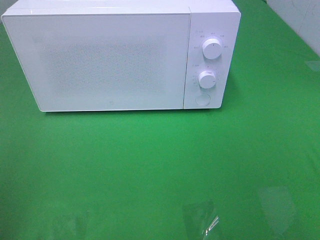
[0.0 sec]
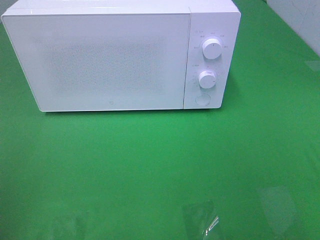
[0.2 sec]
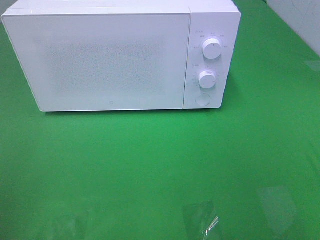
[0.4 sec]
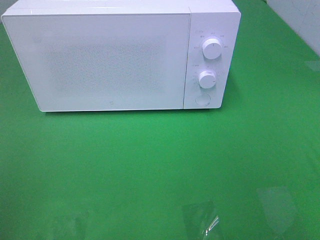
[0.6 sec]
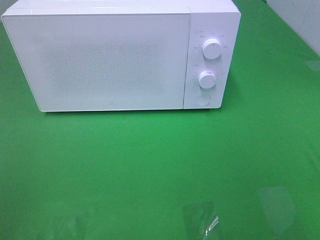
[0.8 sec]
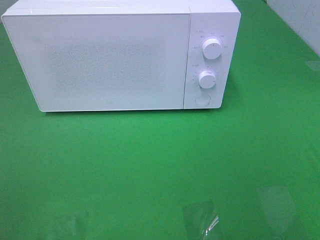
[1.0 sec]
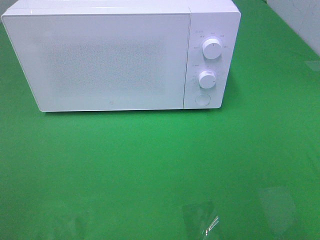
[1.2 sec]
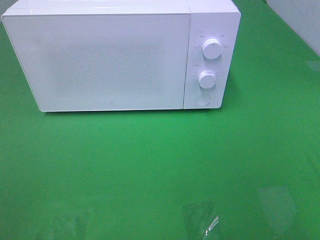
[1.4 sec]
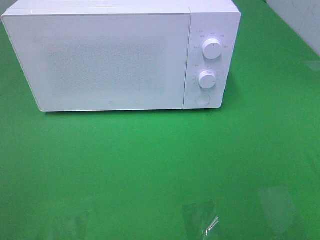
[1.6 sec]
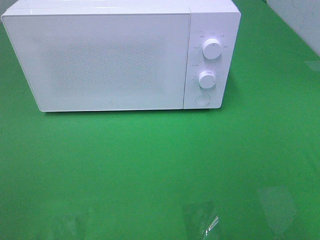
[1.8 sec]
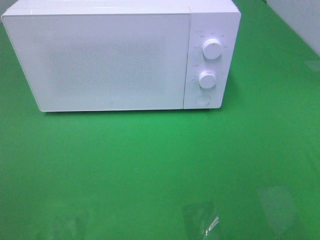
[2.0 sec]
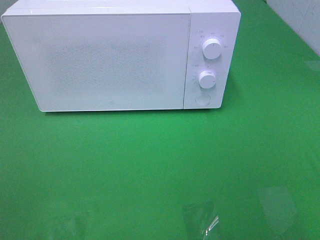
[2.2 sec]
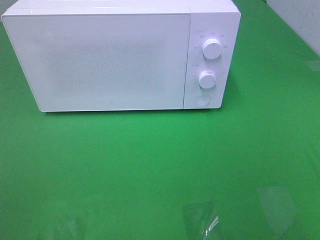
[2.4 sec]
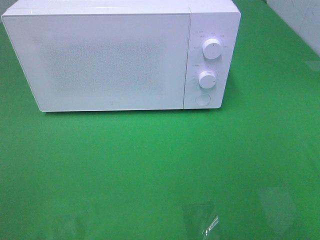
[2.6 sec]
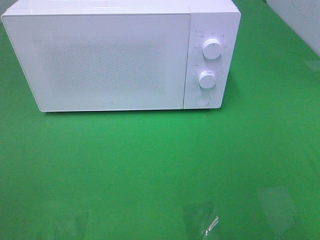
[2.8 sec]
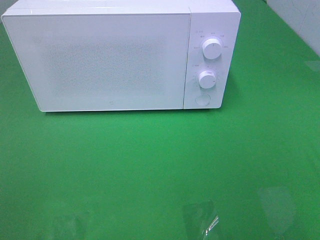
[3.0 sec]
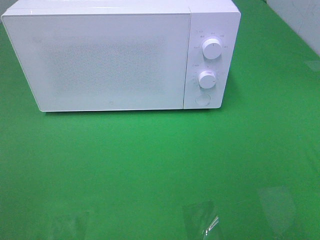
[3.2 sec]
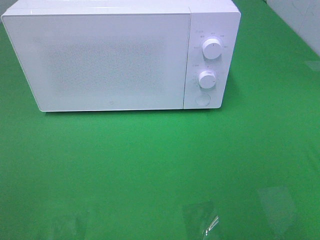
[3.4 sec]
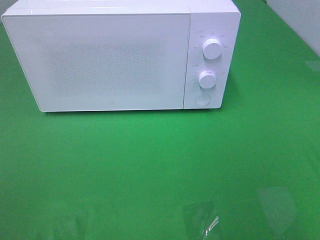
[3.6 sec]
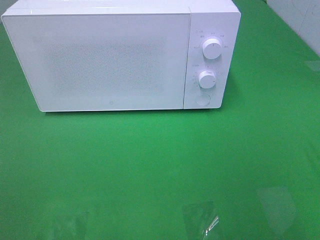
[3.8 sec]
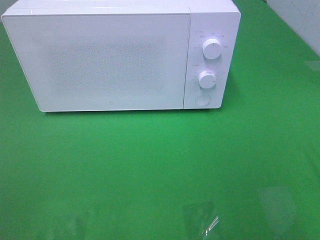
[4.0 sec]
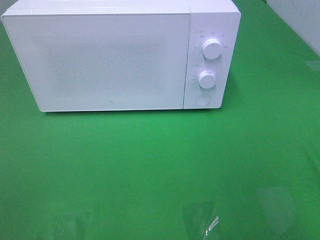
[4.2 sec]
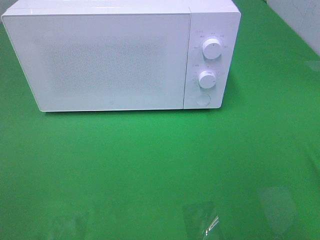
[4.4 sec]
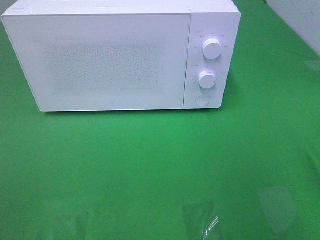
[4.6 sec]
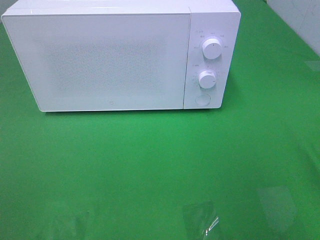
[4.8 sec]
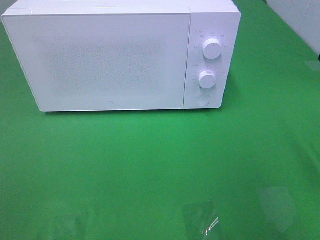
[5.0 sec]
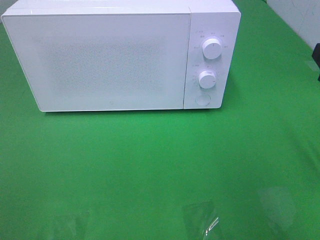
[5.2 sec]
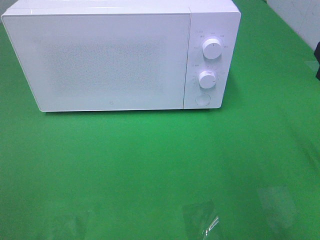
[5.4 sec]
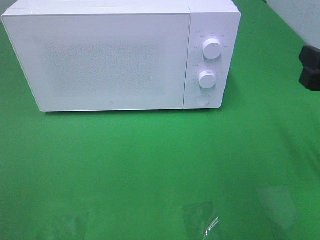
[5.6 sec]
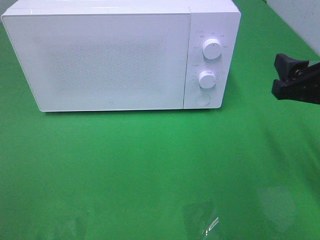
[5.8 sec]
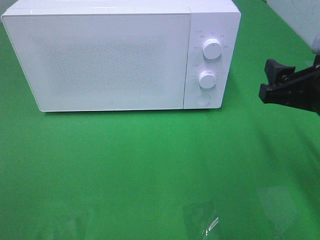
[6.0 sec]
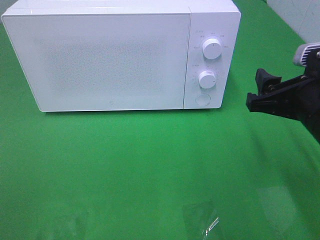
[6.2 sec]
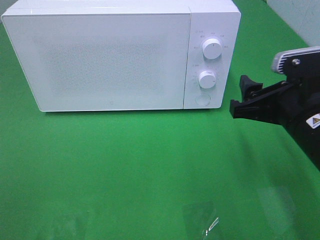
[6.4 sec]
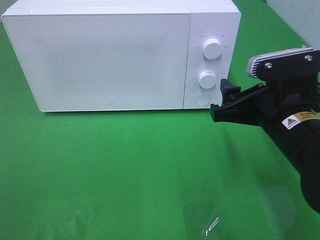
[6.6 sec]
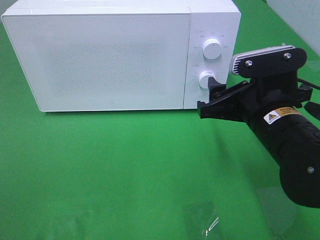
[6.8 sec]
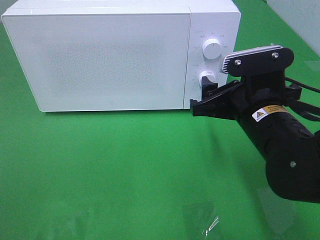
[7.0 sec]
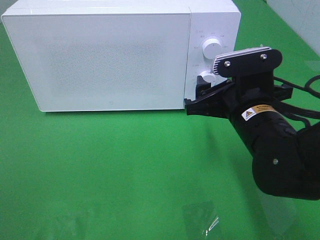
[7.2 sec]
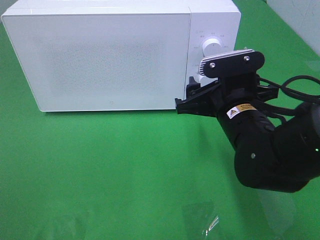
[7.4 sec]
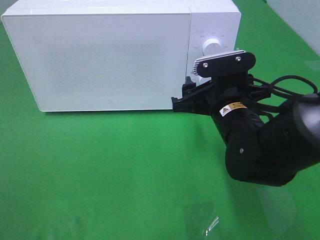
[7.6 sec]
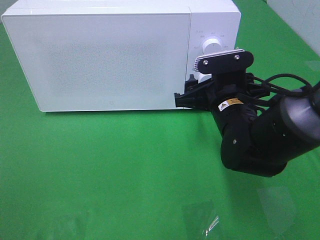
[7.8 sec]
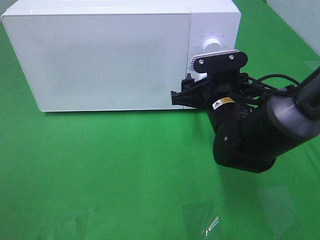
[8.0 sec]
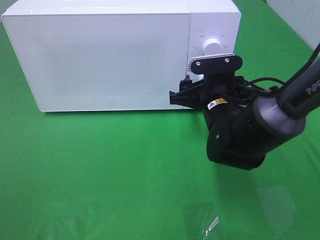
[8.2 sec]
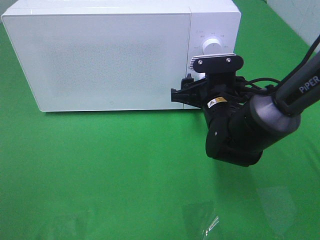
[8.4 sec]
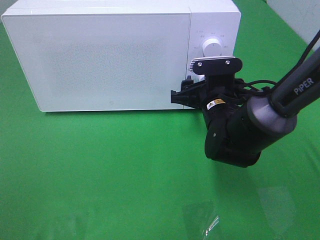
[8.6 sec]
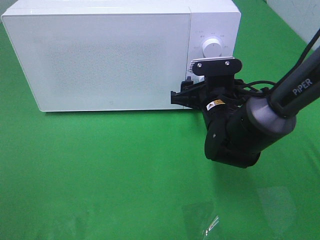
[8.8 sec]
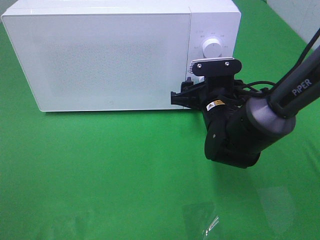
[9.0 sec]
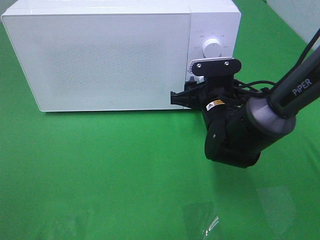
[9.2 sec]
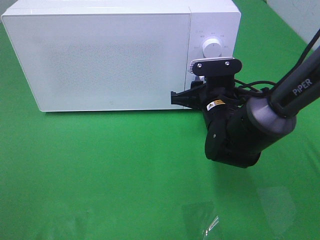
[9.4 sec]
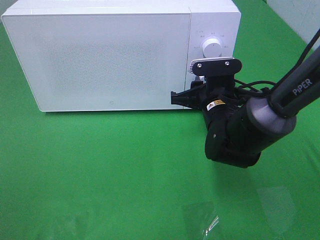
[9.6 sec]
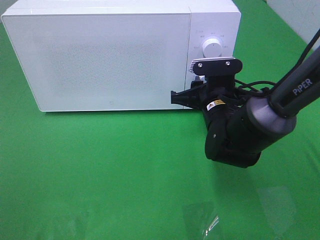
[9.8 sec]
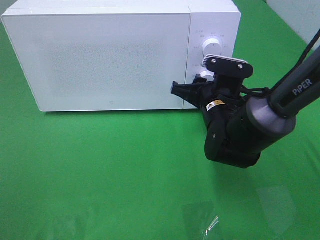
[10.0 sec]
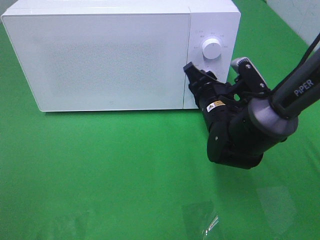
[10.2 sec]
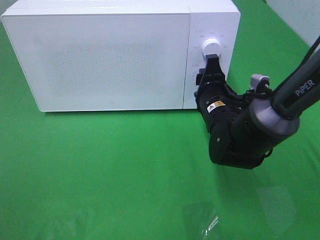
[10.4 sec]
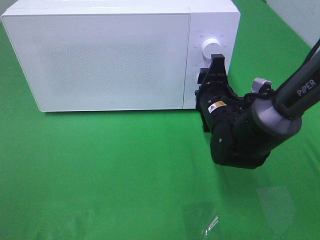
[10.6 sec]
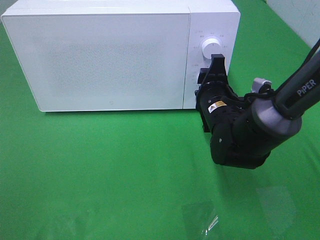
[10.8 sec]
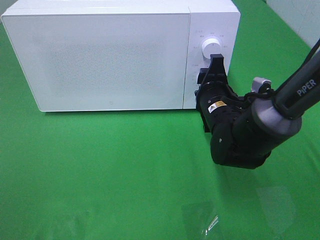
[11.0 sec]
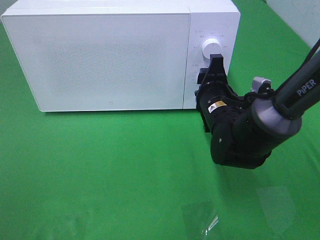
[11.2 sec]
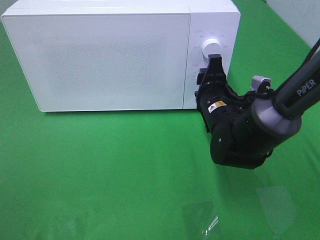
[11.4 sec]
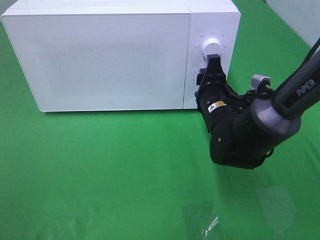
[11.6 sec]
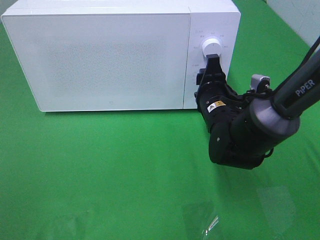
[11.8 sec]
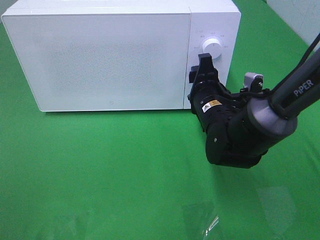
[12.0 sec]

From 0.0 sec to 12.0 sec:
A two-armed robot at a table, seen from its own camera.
Task of the whole recording: Heat the burger.
Step, from 0.0 sec to 12.0 sec: Right hand: twist timer button.
From 1.6 sec to 3.0 sec: Both grippers stay about where they are.
From 4.4 sec to 6.0 sec: The right gripper shifts roughly 15 cm forward, to the left and downward.
From 6.0 sec to 7.6 sec: The right gripper heads to the left, forward and downward, covering roughly 15 cm.
From 7.6 sec to 9.0 sec: The right gripper moves approximately 5 cm.
From 9.0 sec to 10.4 sec: The right gripper closes up.
From 10.4 sec to 12.0 sec: The grippers make only small movements.

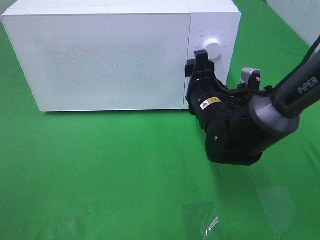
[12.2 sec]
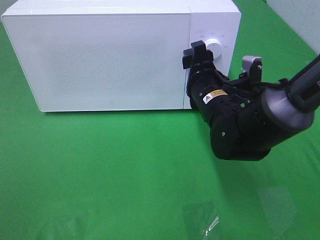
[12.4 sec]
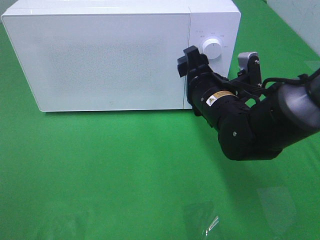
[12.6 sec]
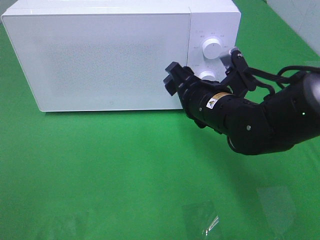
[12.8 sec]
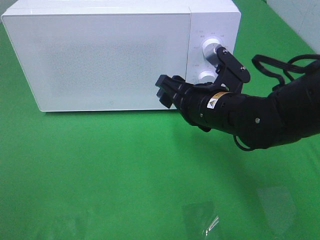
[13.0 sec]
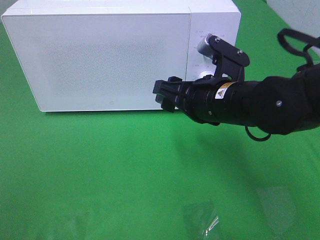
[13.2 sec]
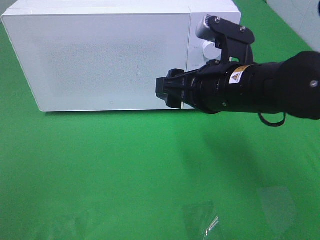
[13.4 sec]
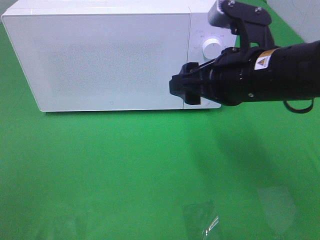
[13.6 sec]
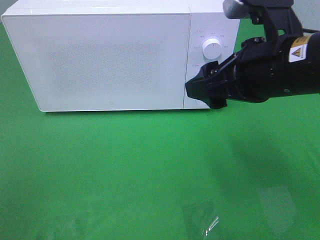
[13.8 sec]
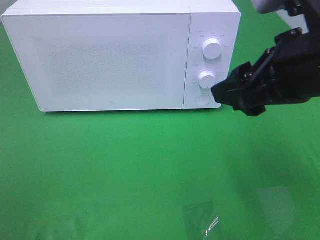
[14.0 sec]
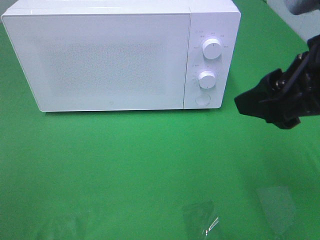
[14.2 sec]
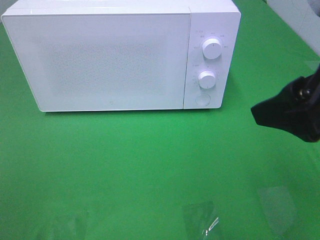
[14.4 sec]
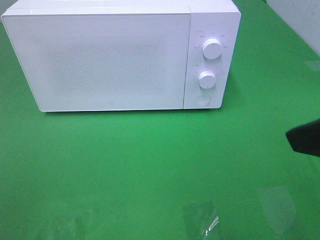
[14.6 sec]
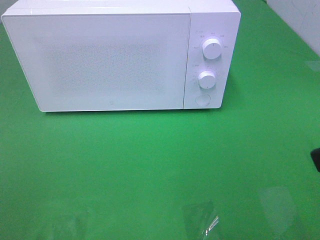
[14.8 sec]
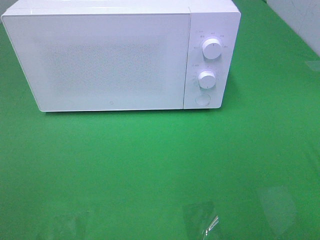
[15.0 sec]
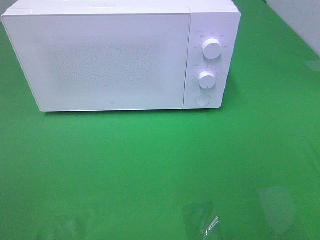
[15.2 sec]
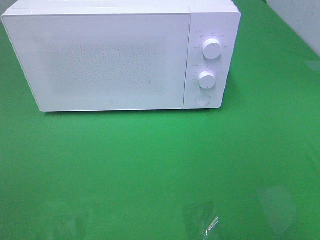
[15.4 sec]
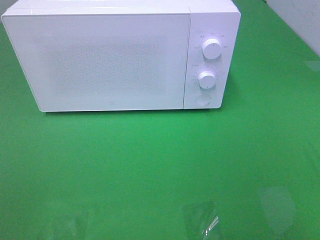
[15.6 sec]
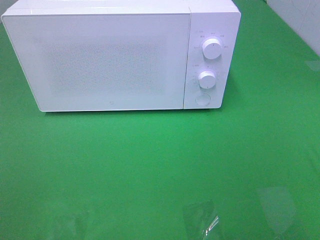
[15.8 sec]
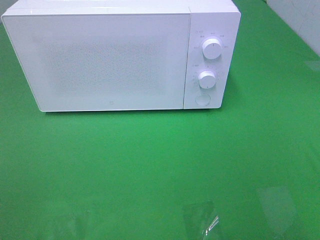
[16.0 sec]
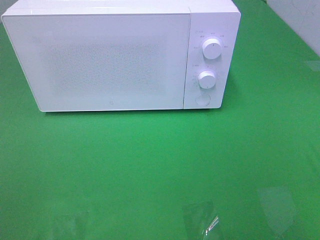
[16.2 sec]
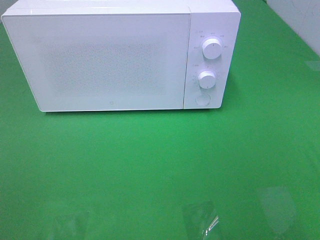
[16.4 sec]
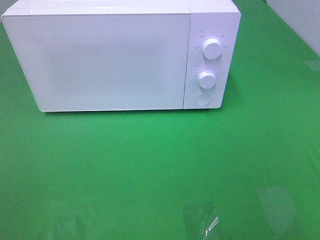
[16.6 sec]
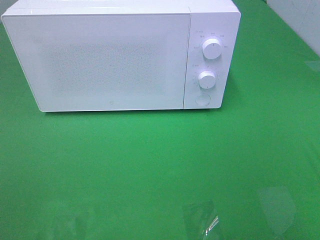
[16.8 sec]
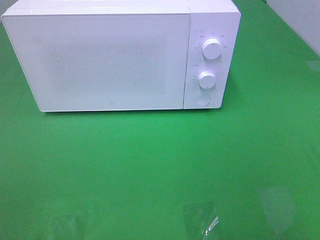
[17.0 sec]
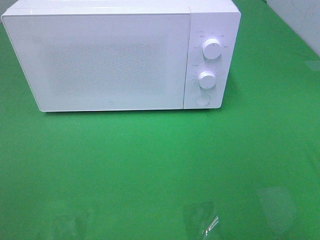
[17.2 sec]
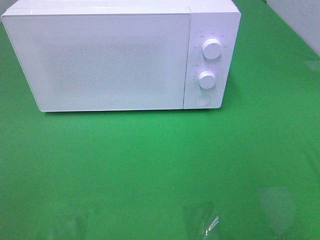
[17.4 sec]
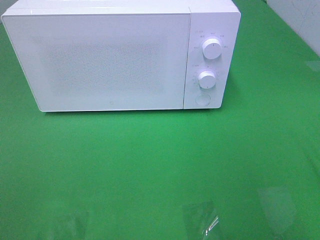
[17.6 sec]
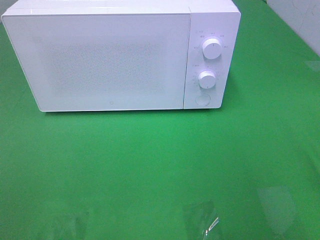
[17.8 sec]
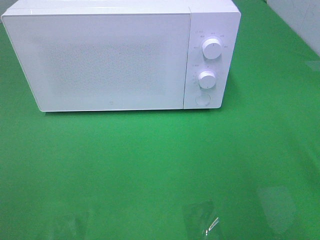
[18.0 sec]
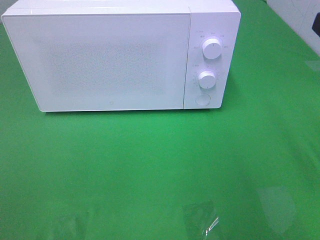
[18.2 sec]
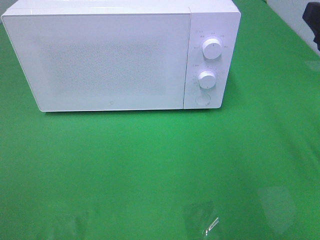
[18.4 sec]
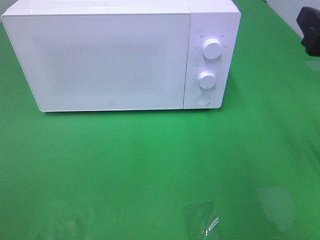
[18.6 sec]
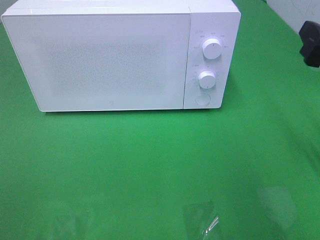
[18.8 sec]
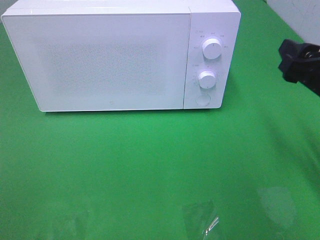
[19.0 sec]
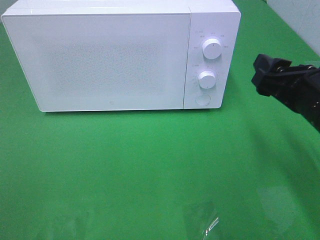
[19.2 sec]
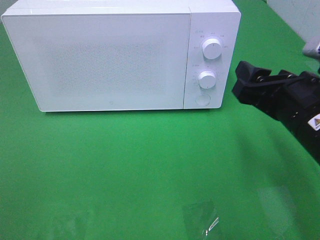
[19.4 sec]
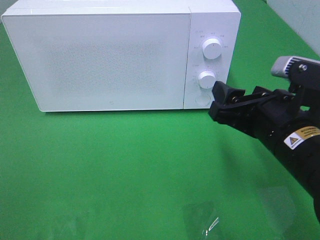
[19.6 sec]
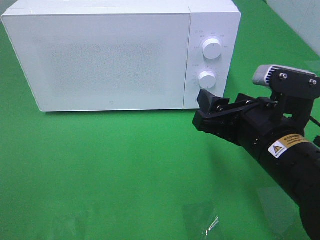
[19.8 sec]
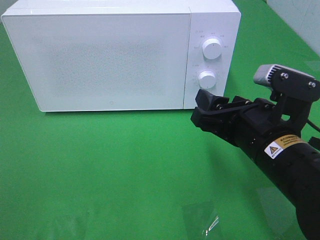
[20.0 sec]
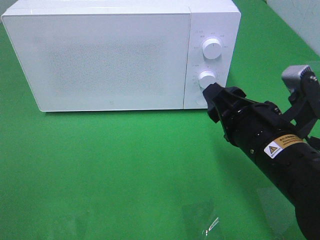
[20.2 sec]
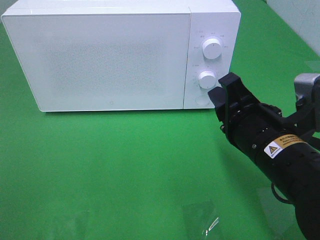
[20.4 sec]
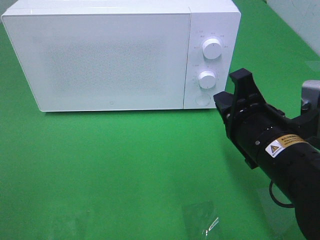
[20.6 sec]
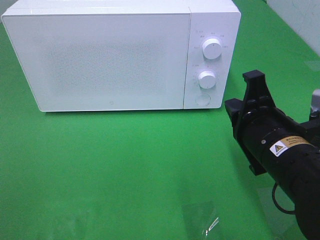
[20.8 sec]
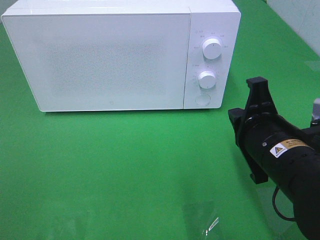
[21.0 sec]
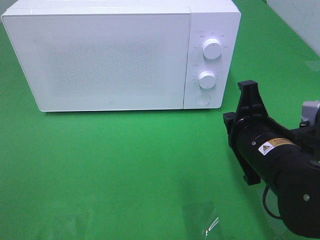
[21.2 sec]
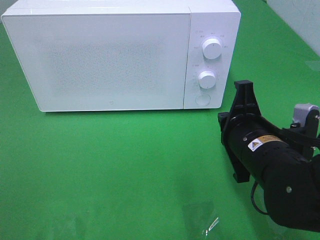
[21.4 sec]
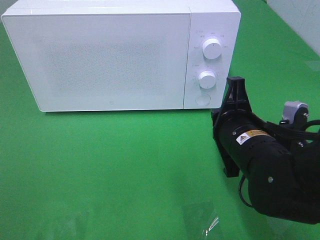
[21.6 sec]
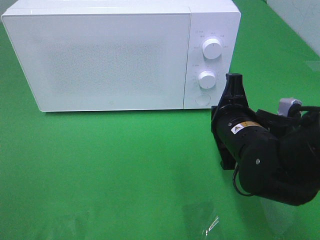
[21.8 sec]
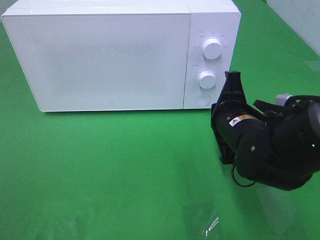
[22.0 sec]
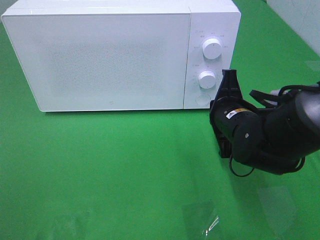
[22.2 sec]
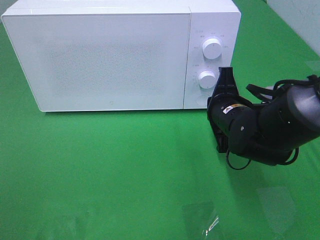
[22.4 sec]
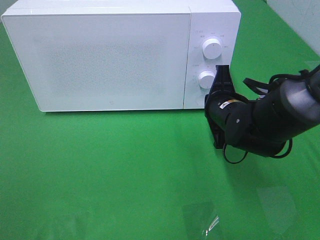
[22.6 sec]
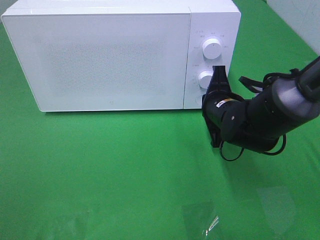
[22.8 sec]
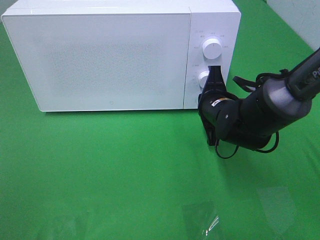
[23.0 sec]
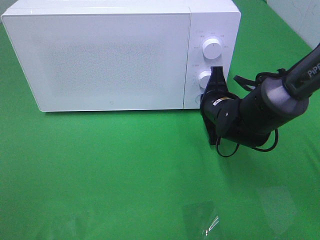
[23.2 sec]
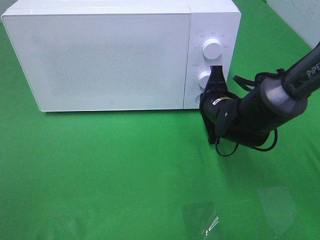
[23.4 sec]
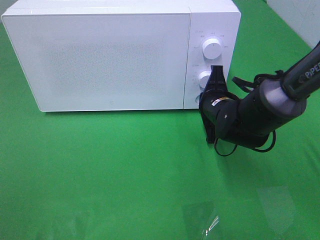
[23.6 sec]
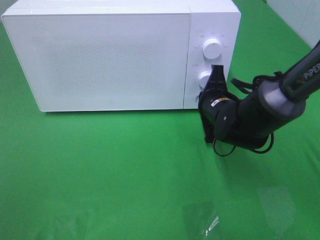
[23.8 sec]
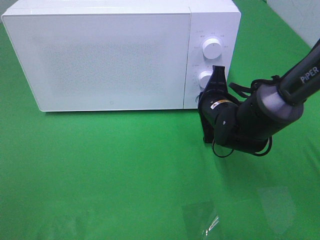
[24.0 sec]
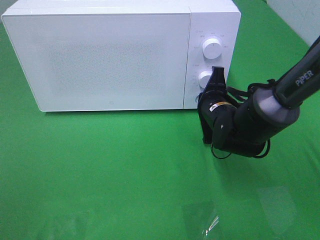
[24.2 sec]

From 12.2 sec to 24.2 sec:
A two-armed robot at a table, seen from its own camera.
Task of the whole recording: Heat the burger.
From 12.2 sec to 13.8 sec: The right gripper moves upward and backward, roughly 20 cm.
From 13.8 sec to 15.2 sec: The right gripper shifts about 20 cm backward and to the right.
From 18.2 sec to 19.8 sec: The right gripper goes about 15 cm downward and to the left.
From 19.8 sec to 21.2 sec: The right gripper closes its fingers.
From 21.2 sec to 22.6 sec: The right gripper travels forward by roughly 10 cm.
From 22.6 sec to 24.2 sec: There are only small adjustments of the grippers.
